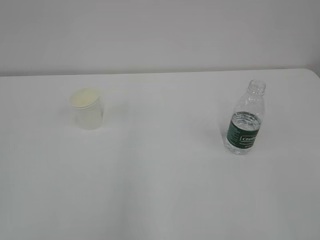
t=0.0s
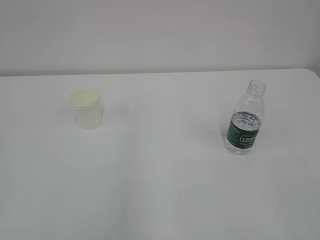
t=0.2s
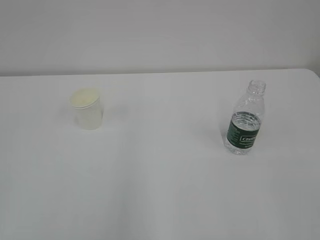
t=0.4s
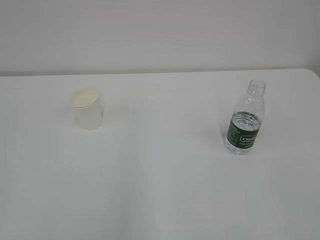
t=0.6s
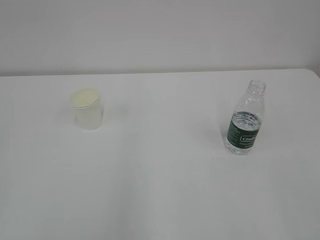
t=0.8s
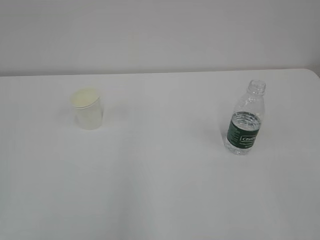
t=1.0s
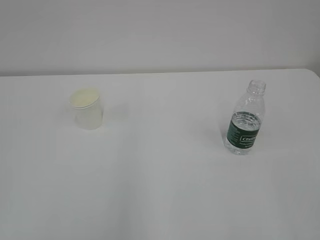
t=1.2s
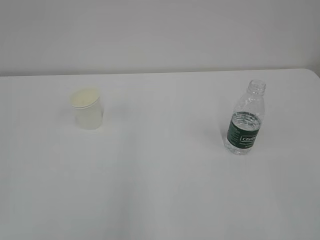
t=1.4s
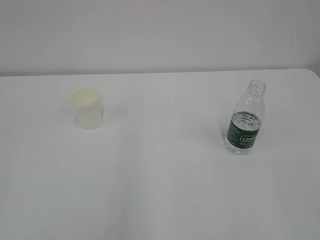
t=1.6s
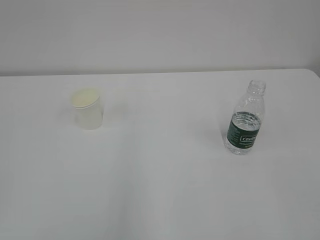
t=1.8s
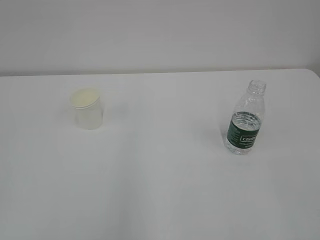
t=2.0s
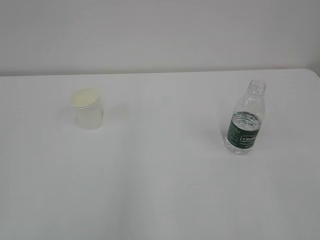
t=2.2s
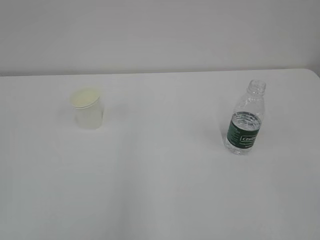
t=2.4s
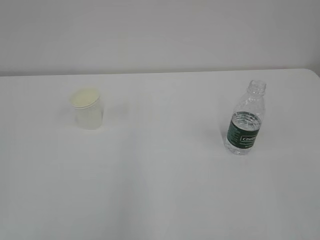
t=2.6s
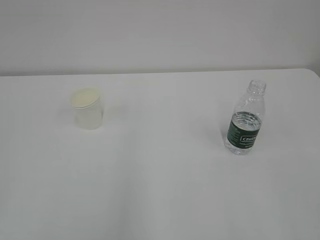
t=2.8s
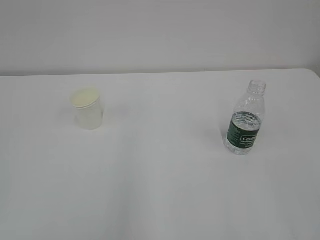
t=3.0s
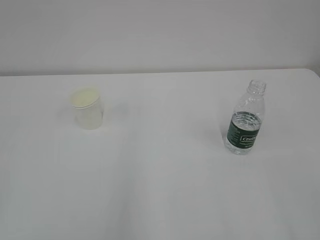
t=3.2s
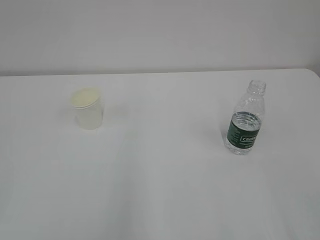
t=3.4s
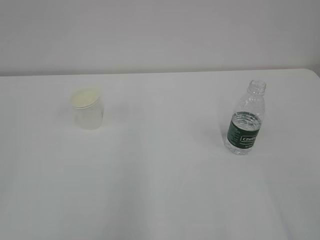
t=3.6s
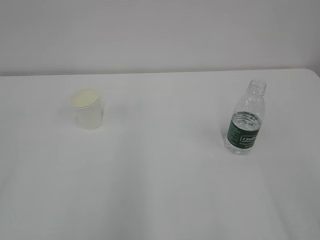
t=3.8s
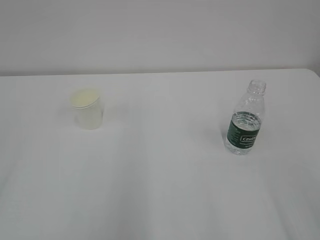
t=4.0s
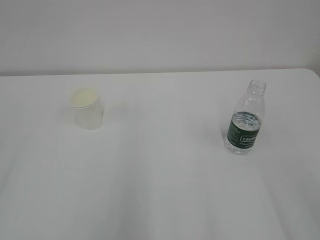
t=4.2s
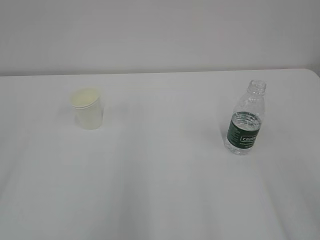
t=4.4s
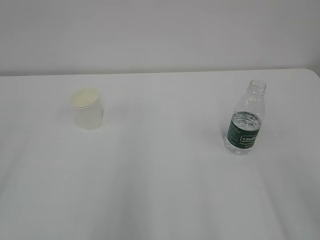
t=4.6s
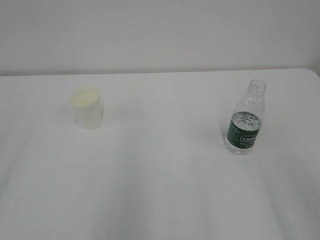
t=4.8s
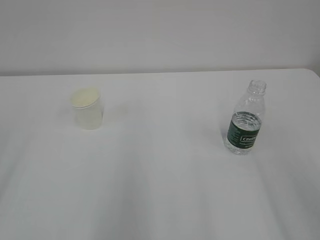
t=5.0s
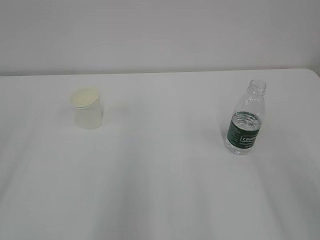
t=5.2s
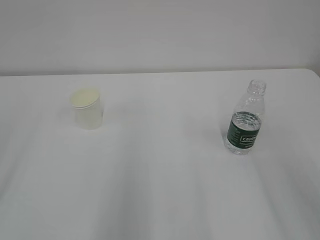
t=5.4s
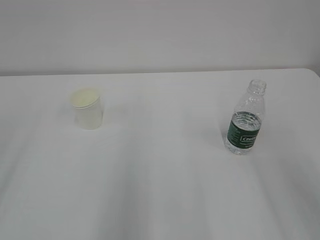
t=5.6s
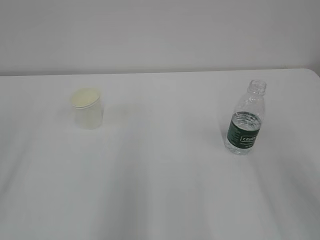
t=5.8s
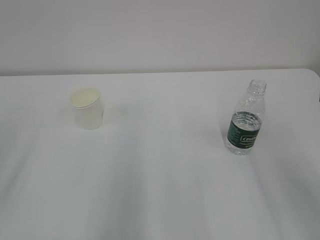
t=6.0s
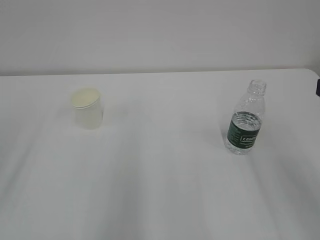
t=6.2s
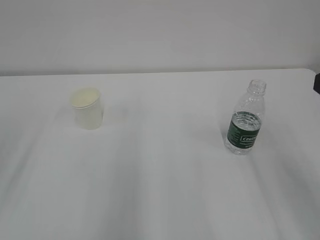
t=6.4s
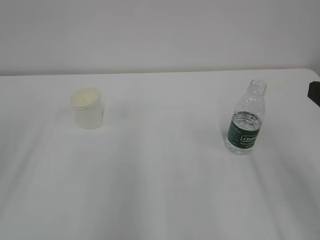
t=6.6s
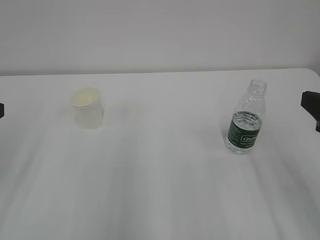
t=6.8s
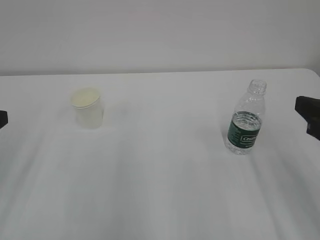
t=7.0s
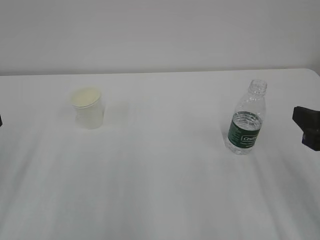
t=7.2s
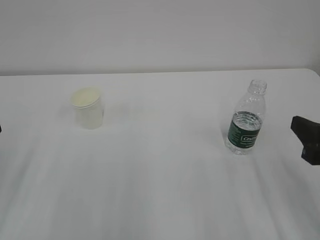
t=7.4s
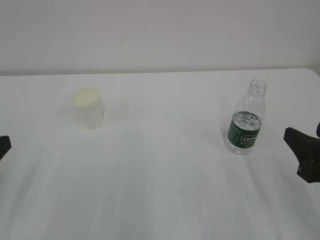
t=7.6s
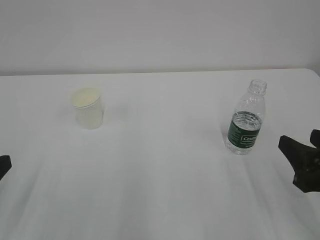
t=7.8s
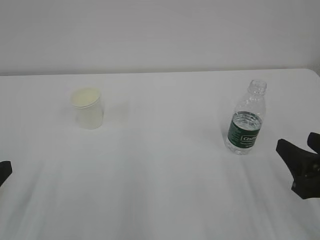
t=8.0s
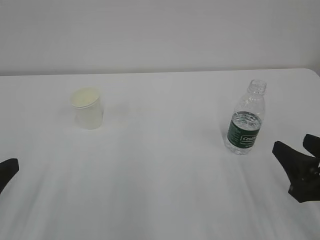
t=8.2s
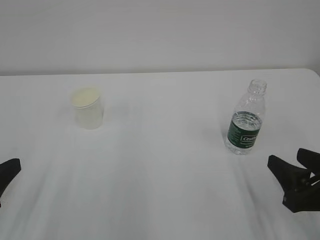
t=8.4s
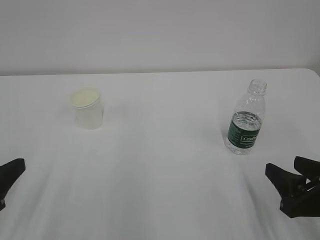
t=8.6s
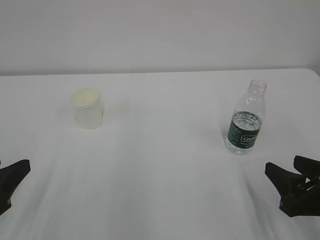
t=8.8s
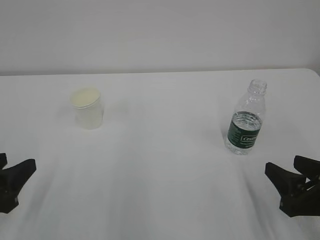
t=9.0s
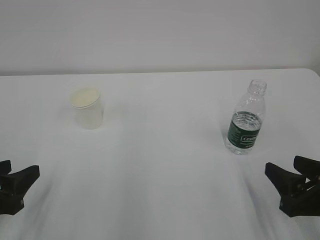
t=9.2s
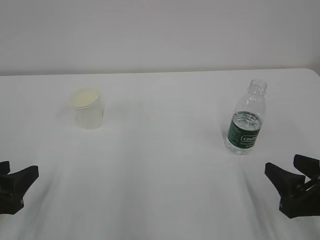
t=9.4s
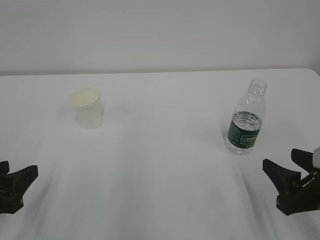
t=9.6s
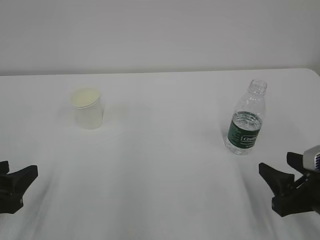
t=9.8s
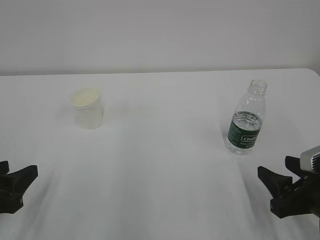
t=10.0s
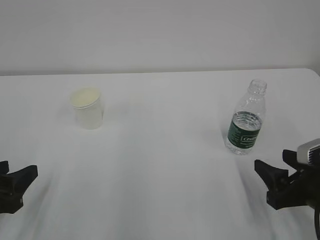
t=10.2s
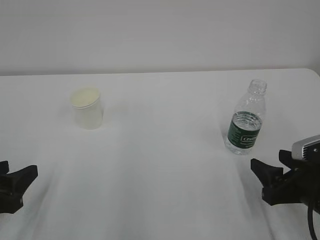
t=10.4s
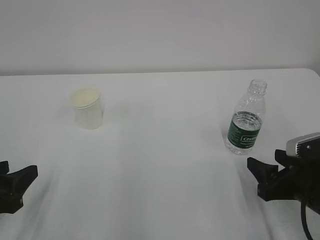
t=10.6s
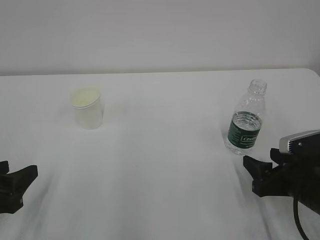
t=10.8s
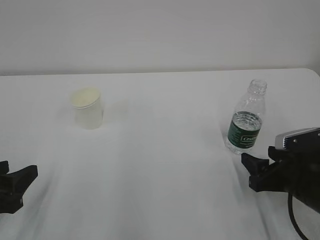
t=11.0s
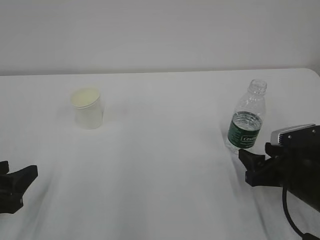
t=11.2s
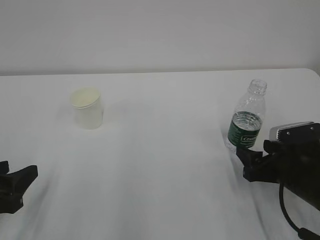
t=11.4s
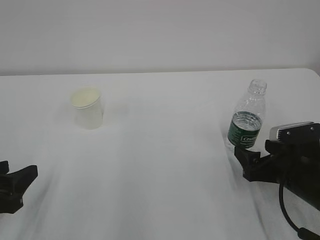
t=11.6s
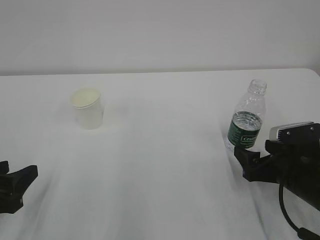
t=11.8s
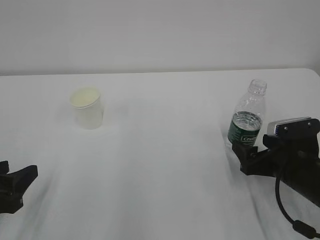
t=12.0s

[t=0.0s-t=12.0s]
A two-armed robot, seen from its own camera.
t=6.0s to t=7.6s: The right gripper is displaced downward by about 10 cm.
t=7.6s to t=9.0s: The right gripper shifts approximately 5 cm downward.
t=9.0s to t=10.4s: The grippers stay close to where they were, moving slightly.
t=10.4s to t=12.0s: The right gripper shifts some 5 cm forward, and opens up.

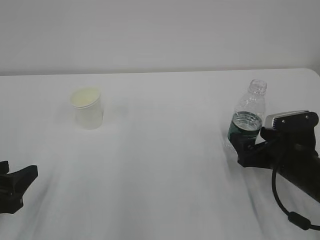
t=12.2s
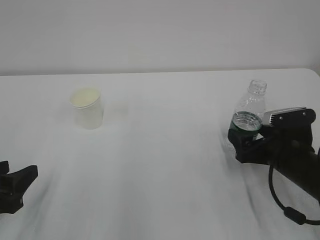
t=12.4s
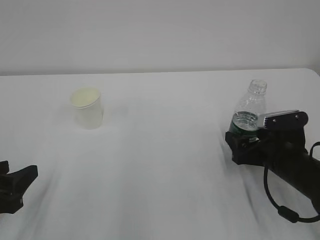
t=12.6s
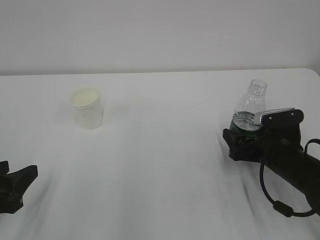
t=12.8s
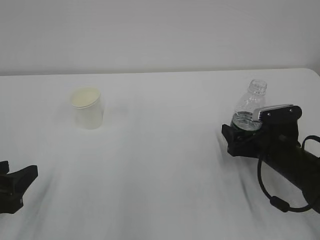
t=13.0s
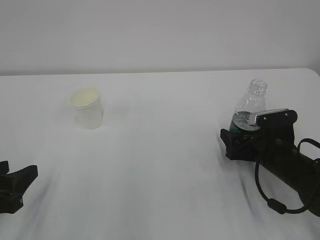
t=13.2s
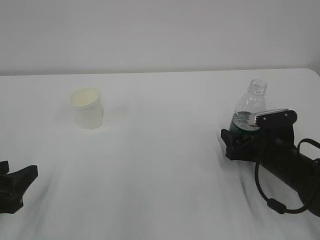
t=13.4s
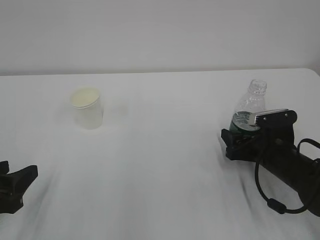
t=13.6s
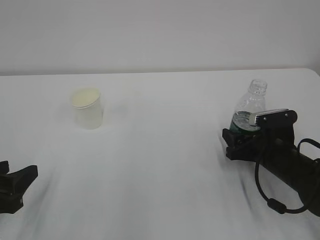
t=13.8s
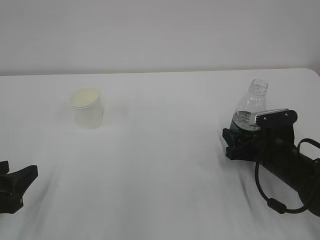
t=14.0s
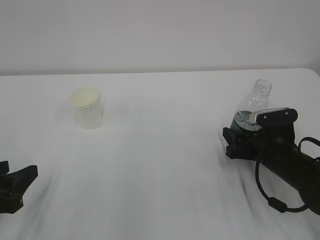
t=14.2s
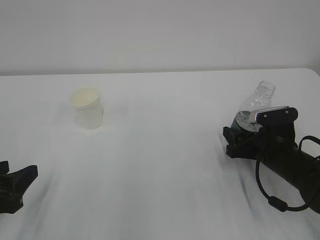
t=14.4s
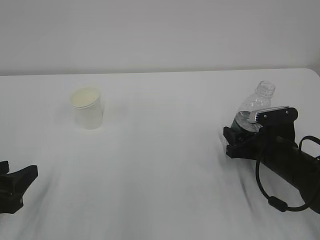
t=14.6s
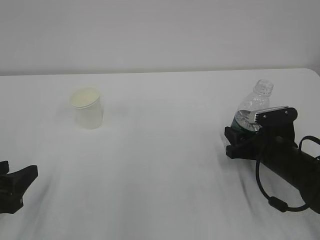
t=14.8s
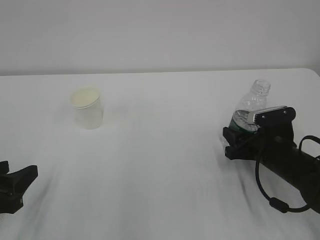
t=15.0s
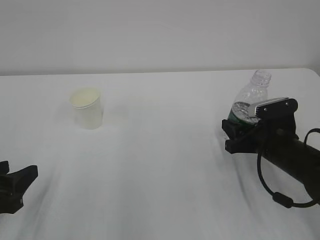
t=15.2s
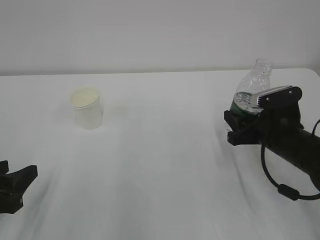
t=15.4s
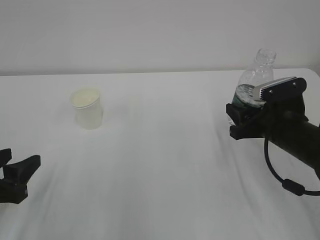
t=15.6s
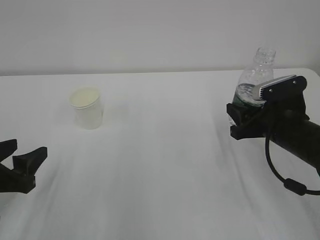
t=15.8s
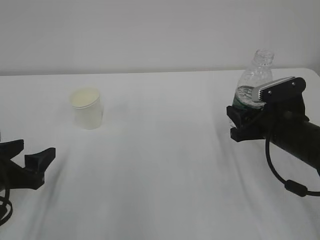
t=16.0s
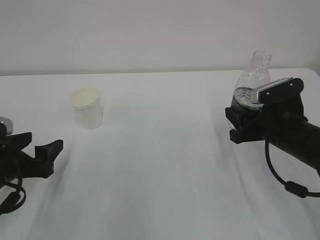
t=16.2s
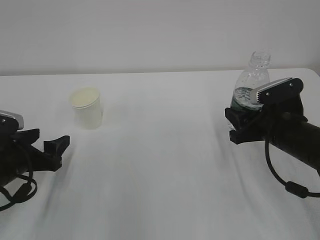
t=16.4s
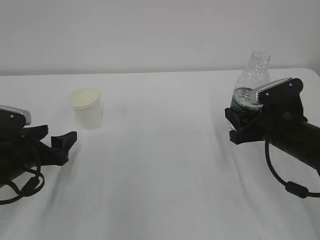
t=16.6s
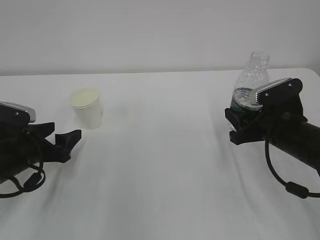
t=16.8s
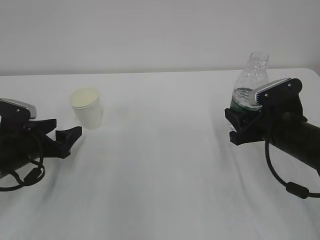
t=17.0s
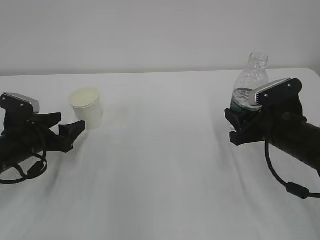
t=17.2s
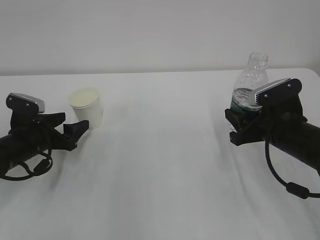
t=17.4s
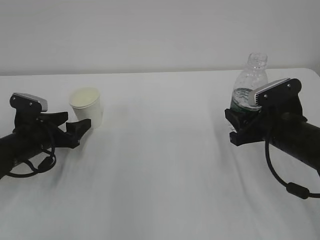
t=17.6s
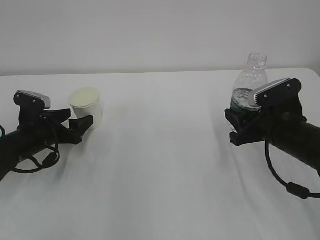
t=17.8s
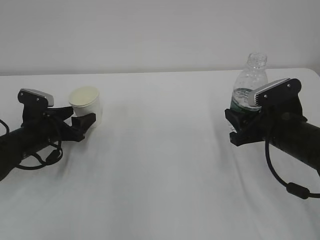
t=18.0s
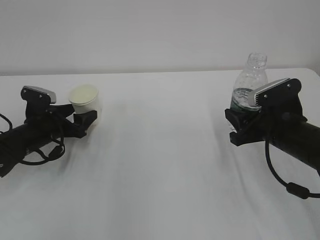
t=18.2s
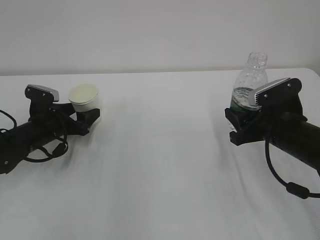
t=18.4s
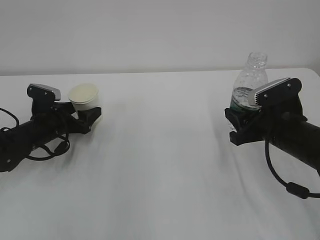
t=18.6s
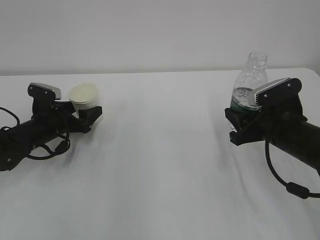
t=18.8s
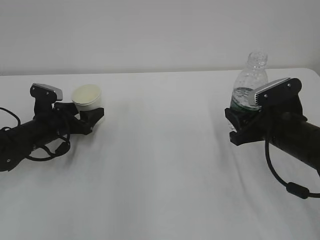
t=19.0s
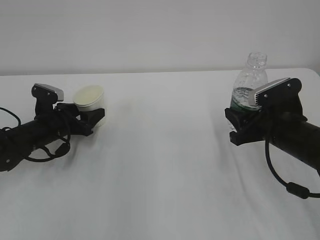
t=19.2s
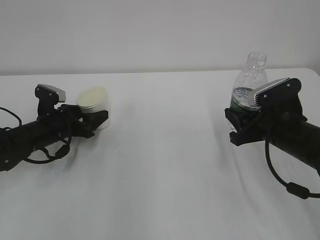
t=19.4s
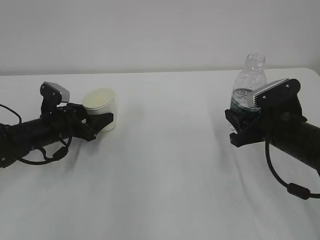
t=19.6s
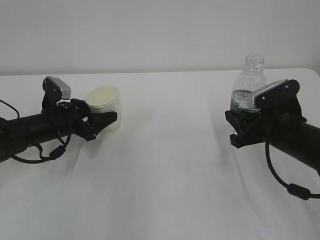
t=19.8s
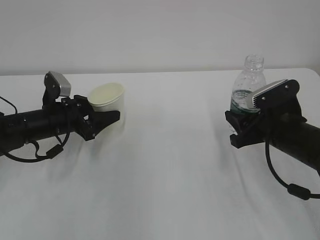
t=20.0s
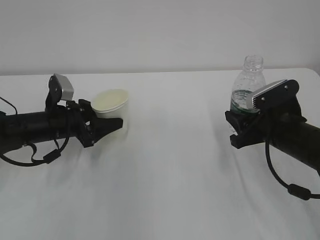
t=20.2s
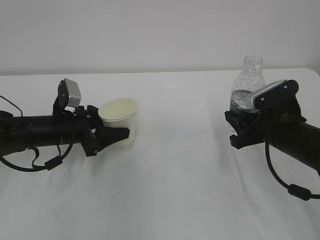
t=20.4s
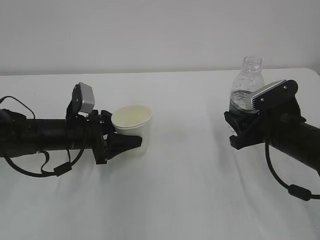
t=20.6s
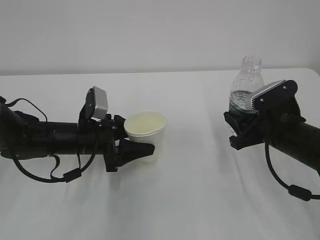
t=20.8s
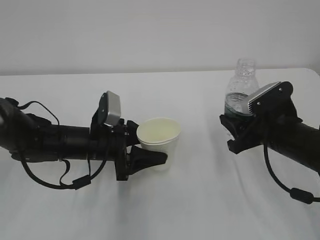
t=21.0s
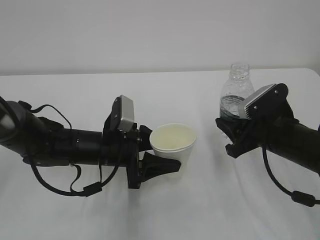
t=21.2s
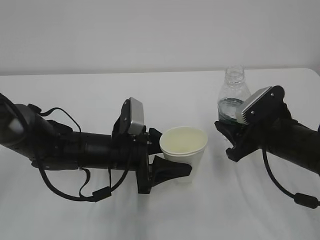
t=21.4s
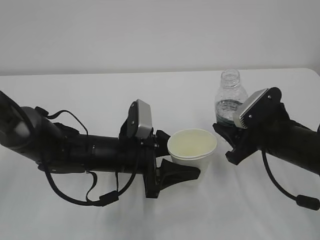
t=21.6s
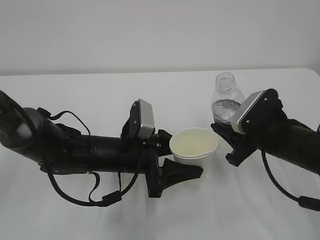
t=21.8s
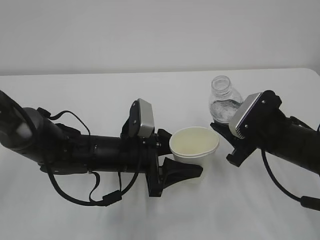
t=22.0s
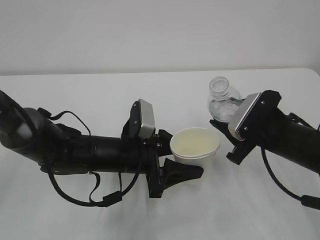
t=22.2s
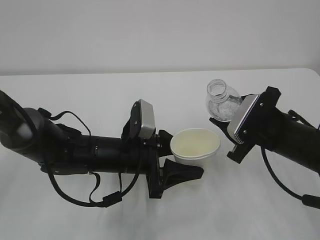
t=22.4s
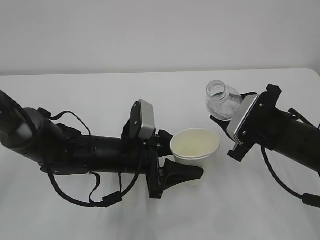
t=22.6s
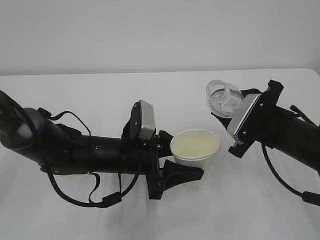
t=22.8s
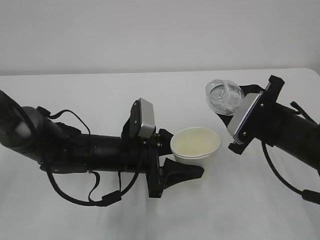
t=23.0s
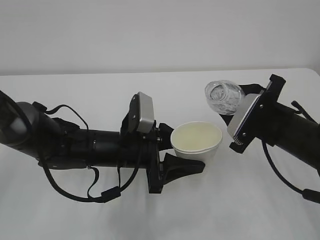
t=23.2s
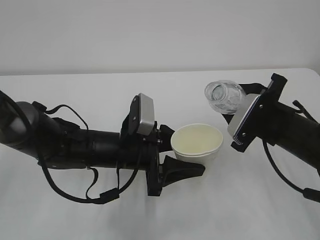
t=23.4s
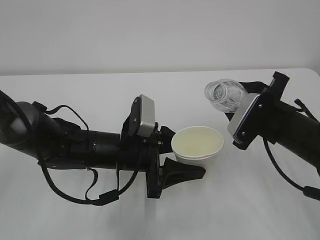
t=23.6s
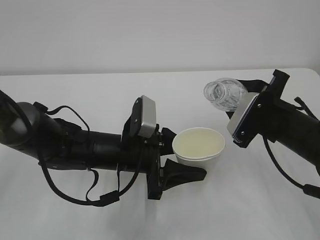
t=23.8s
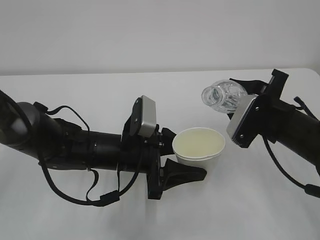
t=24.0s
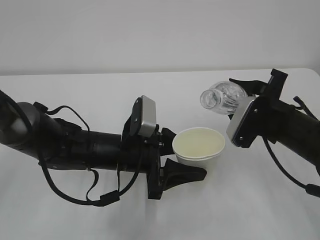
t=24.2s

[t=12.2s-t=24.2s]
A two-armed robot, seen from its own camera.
t=12.2s to t=13.8s: The right gripper closes.
t=13.8s to t=15.2s: The right gripper closes.
t=15.2s to t=16.6s: The left gripper shifts approximately 10 cm forward, and opens its fingers.
t=16.6s to t=18.2s: The left gripper travels forward by some 10 cm.
t=18.2s to t=19.8s: The left gripper closes its fingers.
t=19.8s to t=21.2s: The left gripper shifts roughly 15 cm to the right and backward.
